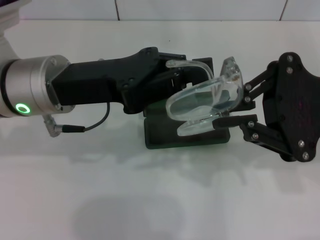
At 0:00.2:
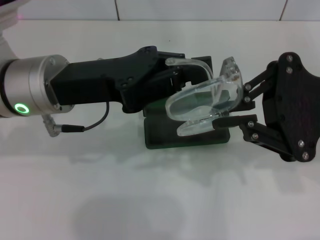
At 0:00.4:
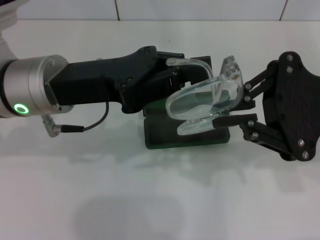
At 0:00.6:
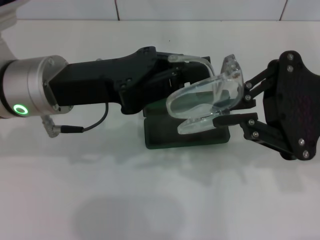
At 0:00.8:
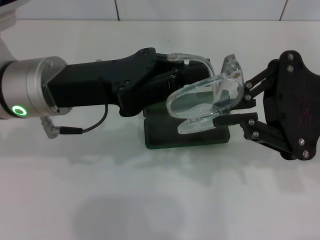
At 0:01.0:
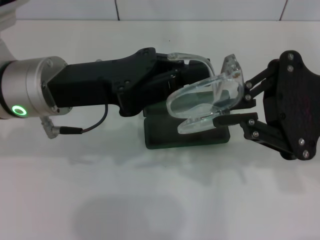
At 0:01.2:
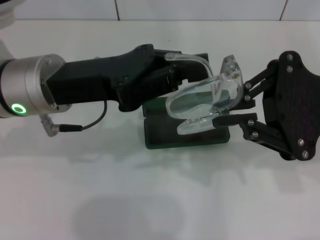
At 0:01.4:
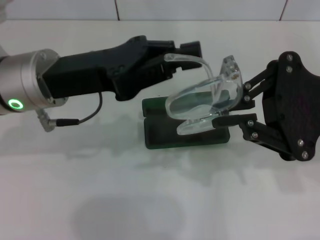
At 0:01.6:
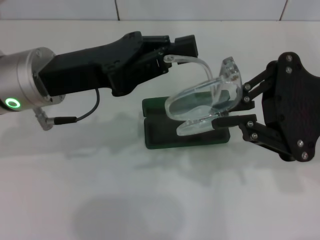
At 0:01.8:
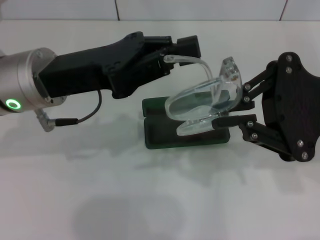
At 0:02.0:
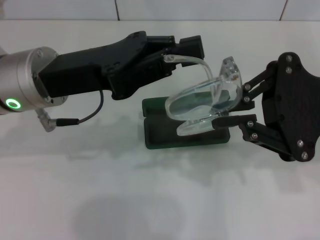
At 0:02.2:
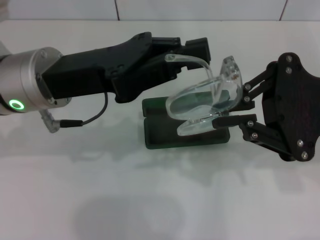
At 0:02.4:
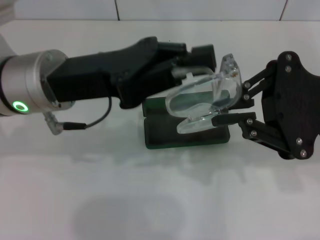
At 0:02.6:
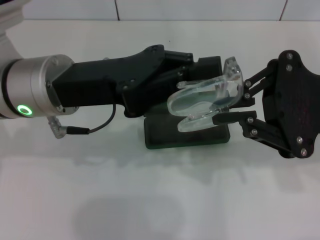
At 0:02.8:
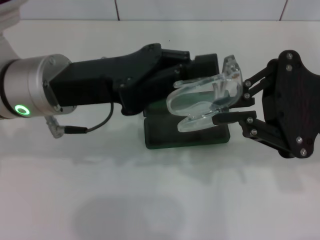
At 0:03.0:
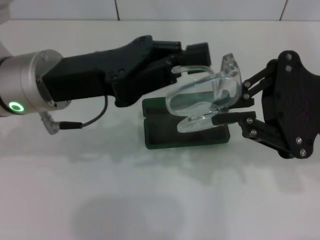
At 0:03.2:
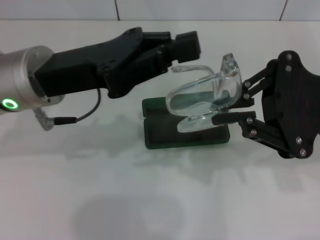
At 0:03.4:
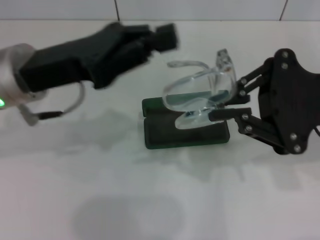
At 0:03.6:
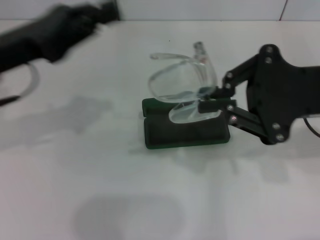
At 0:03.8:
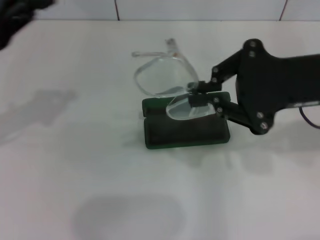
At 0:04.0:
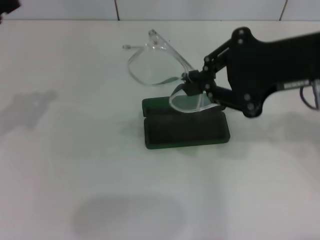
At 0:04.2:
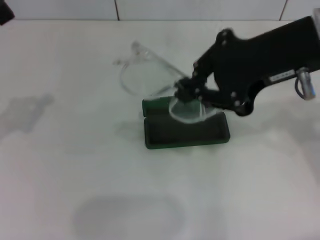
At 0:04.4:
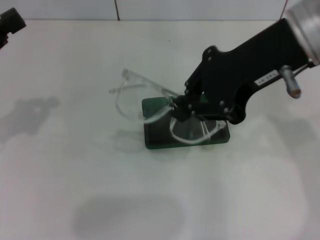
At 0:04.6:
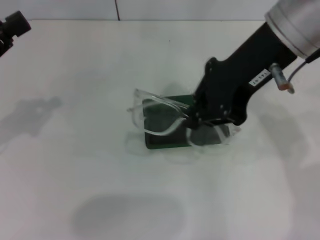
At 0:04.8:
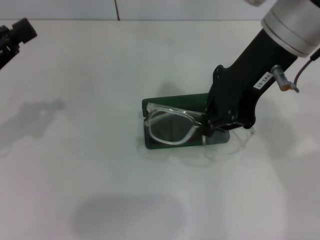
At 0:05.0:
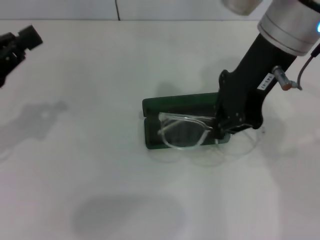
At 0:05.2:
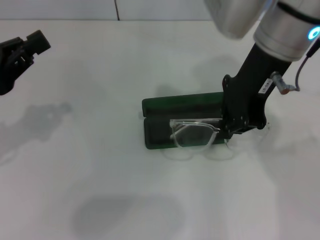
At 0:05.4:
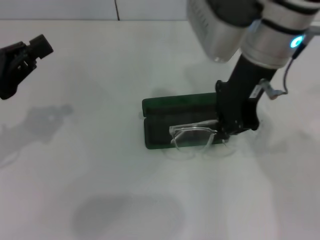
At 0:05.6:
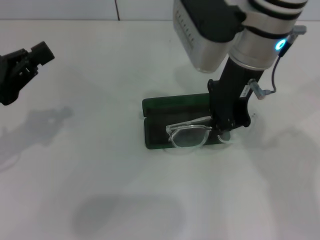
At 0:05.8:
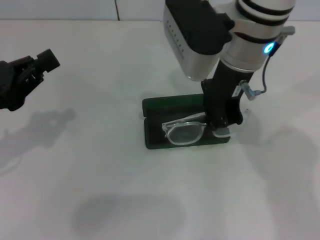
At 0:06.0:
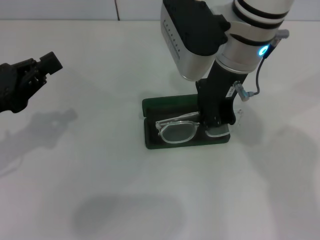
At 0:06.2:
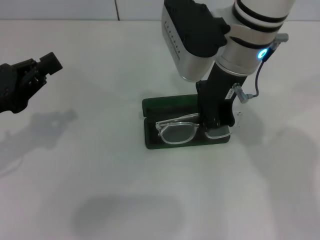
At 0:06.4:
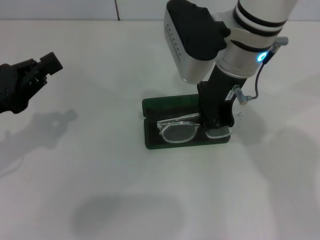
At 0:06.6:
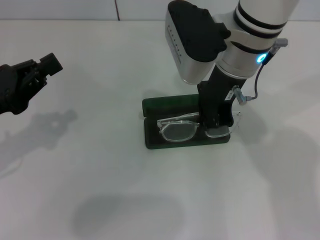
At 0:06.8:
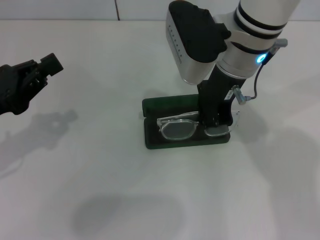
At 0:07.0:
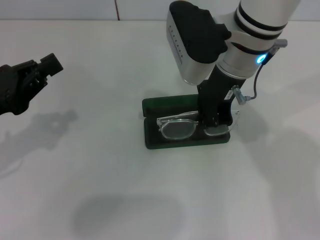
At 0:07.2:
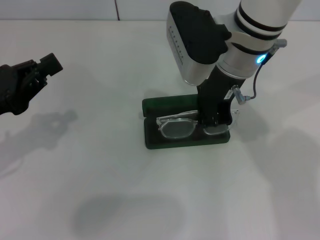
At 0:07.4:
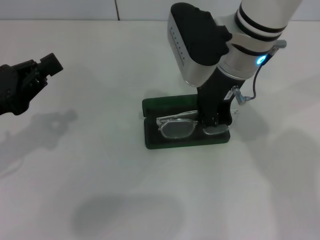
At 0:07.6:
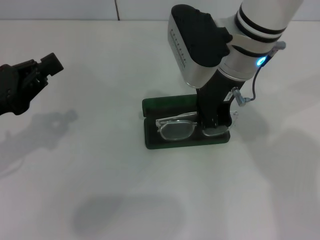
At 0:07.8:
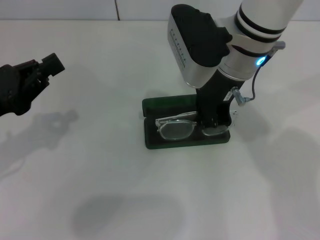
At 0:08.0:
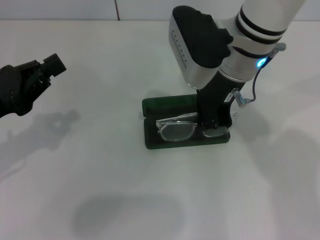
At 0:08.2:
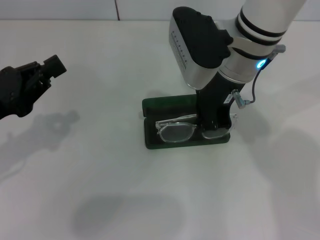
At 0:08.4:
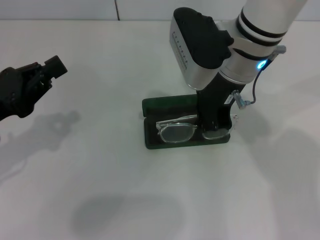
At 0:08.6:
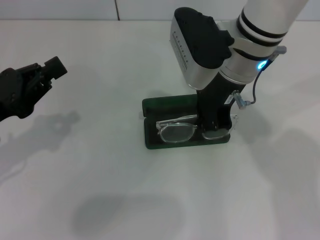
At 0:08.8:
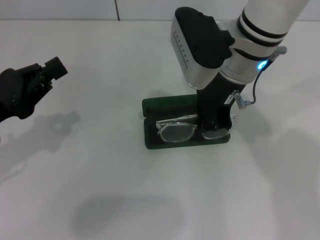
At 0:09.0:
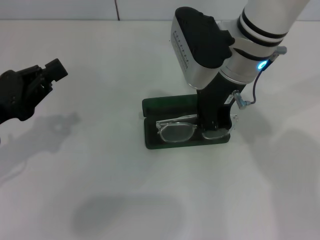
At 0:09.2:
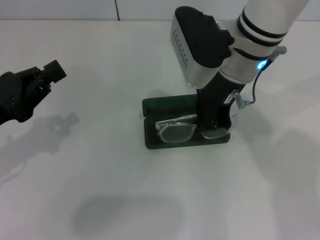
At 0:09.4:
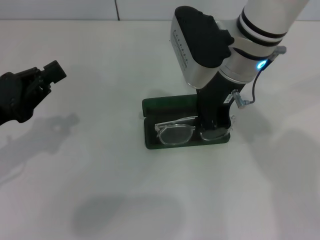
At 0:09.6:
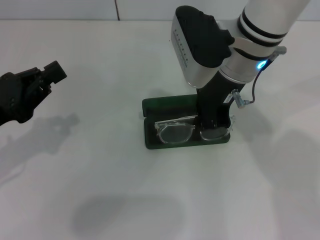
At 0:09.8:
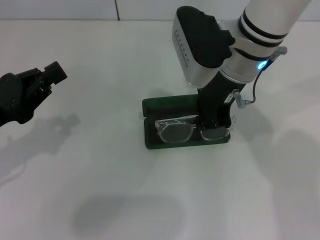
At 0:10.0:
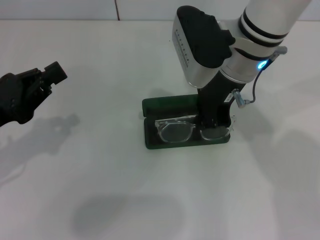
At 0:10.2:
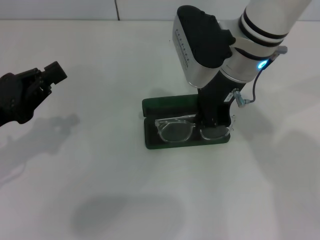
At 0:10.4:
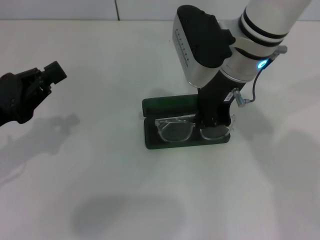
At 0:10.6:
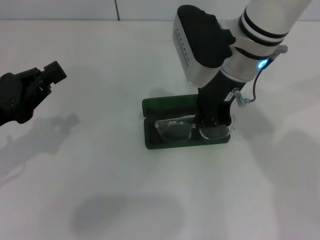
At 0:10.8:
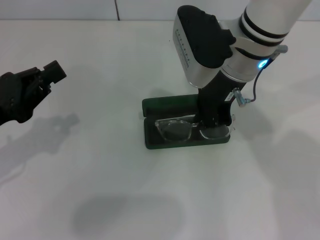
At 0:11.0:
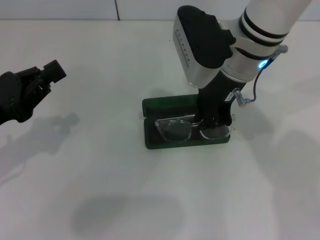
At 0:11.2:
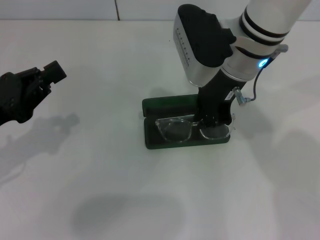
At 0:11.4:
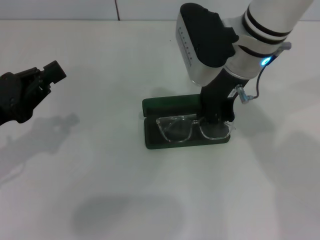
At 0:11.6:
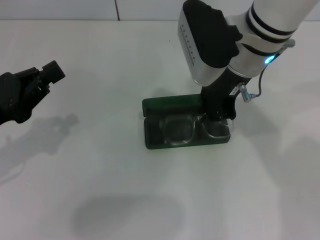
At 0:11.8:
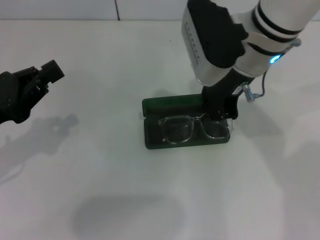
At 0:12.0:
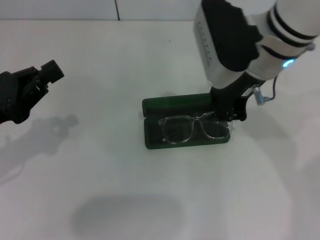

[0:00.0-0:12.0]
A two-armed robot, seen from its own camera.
Step, 0:00.0 to 0:02.8: Fold the frame with your left hand.
0:00.0 to 0:03.0: The grippers stay close to where they were, moving slightly.
0:03.0 to 0:04.4: The right gripper is displaced to the left and upward by approximately 10 cm. Meanwhile the left gripper travels to the left by some 15 cm.
0:04.4 to 0:06.0: The right gripper is displaced to the left, downward and forward by approximately 10 cm, while the left gripper moves approximately 5 cm.
0:06.0 to 0:07.6: The grippers make only small movements.
0:07.6 to 0:10.4: The two grippers keep their place.
0:10.4 to 0:12.0: The grippers stay close to where they were, moving slightly.

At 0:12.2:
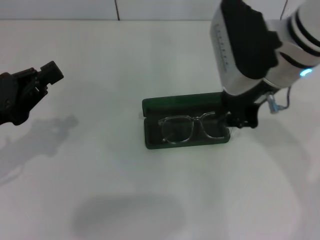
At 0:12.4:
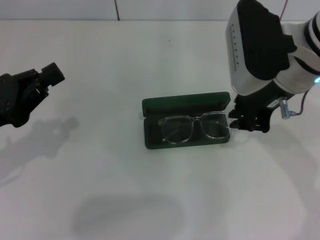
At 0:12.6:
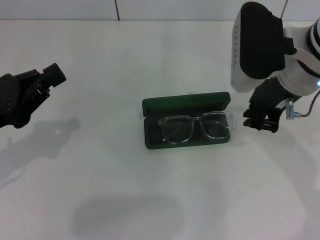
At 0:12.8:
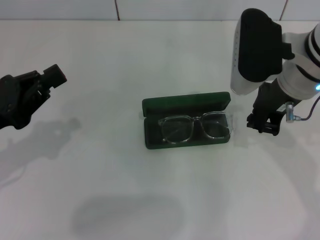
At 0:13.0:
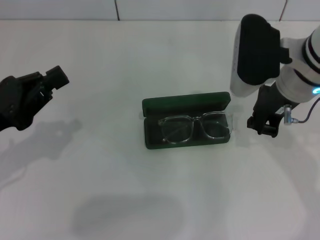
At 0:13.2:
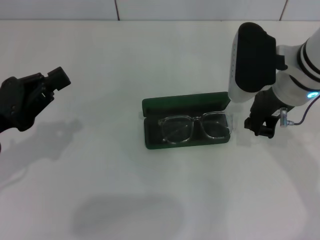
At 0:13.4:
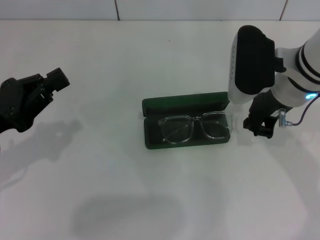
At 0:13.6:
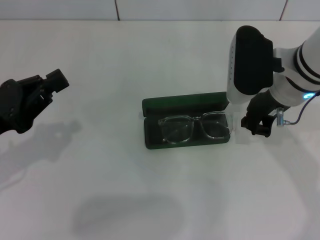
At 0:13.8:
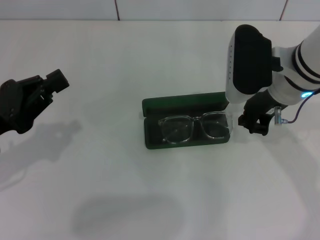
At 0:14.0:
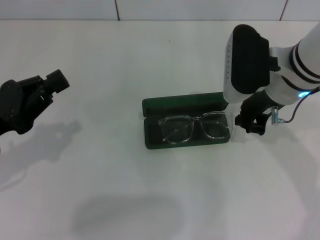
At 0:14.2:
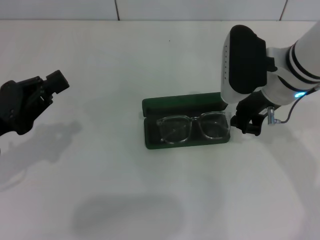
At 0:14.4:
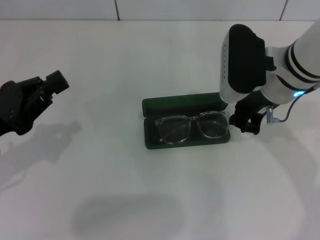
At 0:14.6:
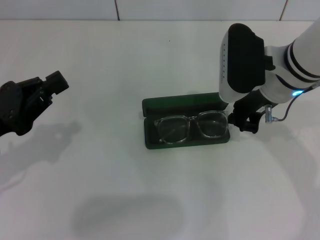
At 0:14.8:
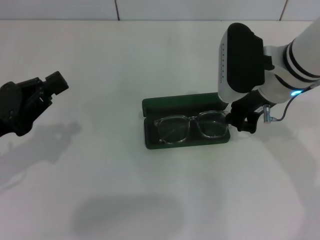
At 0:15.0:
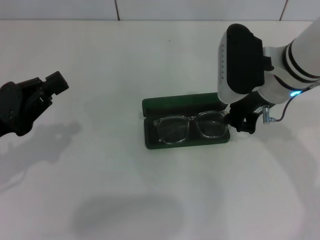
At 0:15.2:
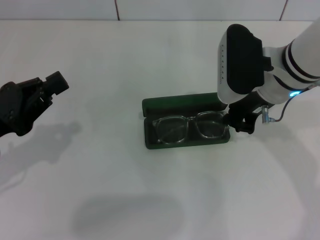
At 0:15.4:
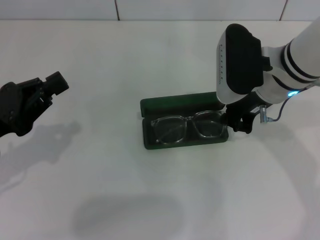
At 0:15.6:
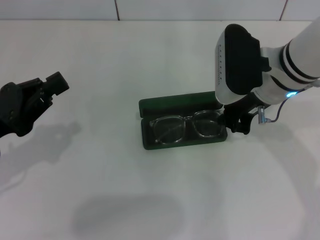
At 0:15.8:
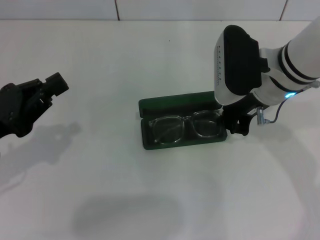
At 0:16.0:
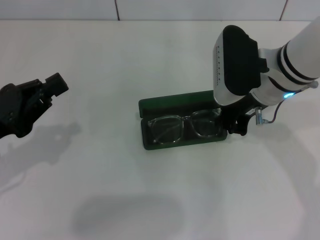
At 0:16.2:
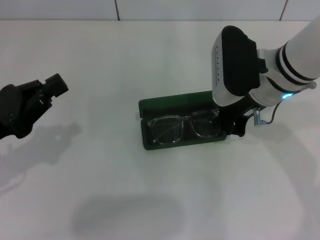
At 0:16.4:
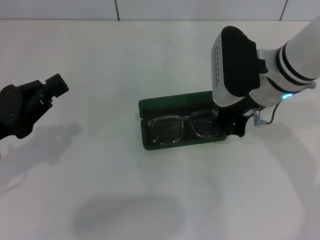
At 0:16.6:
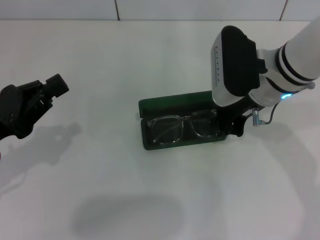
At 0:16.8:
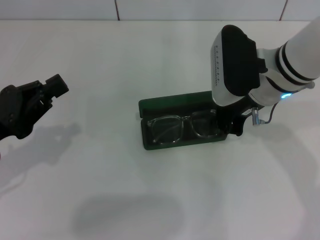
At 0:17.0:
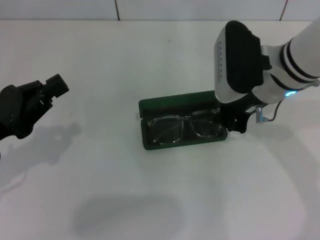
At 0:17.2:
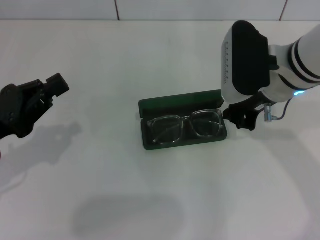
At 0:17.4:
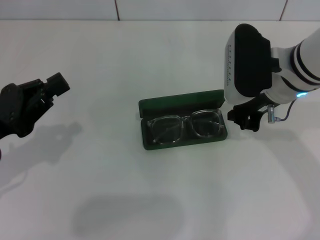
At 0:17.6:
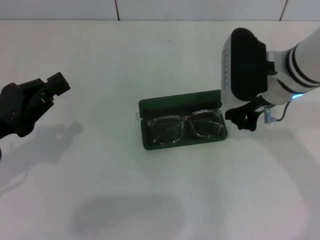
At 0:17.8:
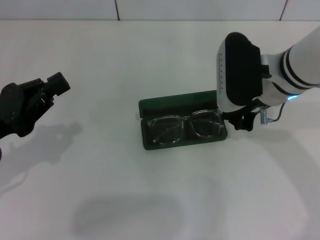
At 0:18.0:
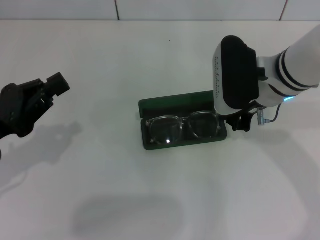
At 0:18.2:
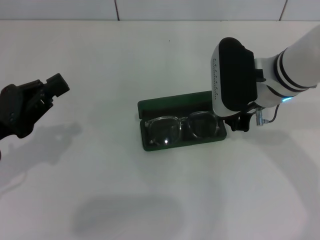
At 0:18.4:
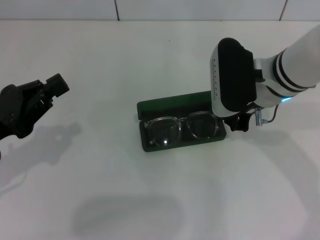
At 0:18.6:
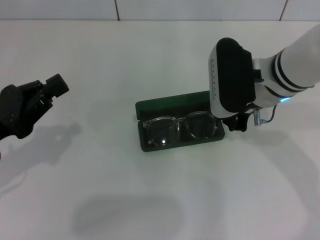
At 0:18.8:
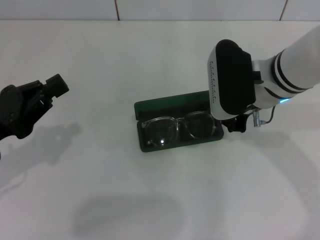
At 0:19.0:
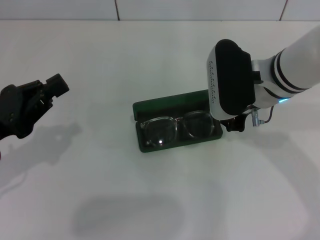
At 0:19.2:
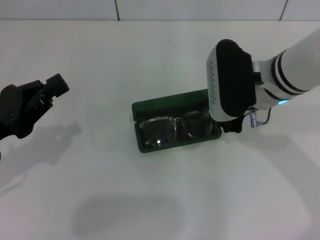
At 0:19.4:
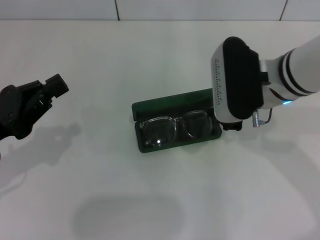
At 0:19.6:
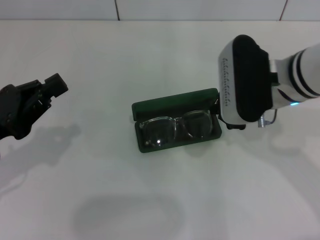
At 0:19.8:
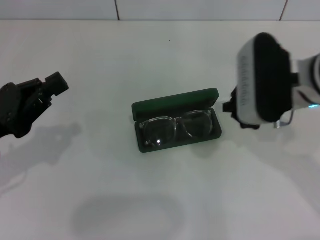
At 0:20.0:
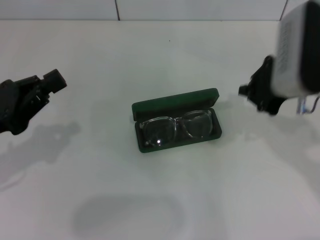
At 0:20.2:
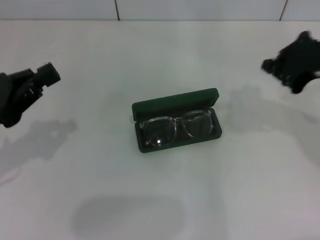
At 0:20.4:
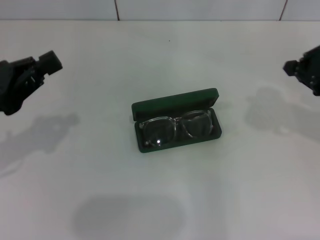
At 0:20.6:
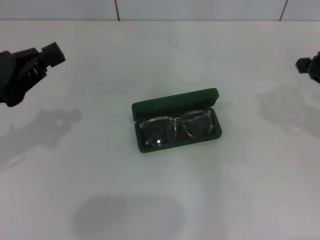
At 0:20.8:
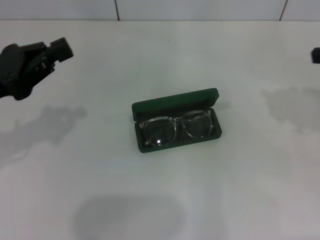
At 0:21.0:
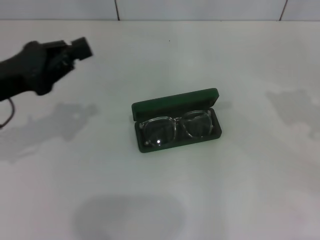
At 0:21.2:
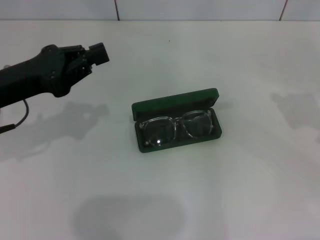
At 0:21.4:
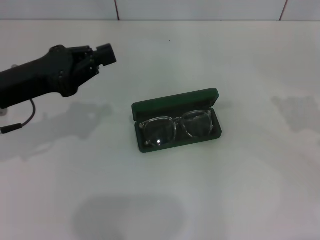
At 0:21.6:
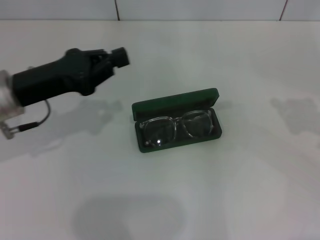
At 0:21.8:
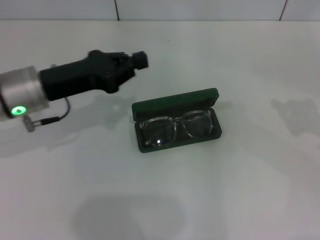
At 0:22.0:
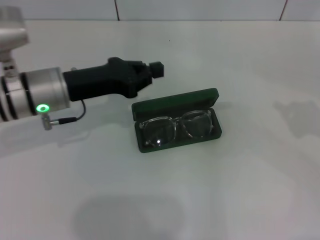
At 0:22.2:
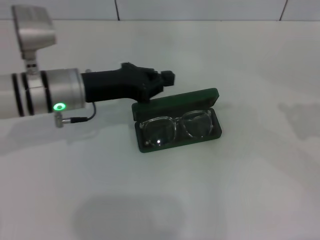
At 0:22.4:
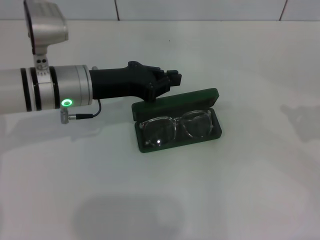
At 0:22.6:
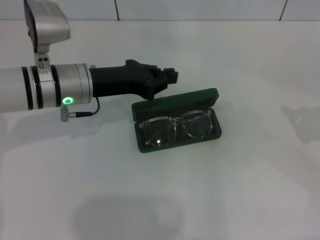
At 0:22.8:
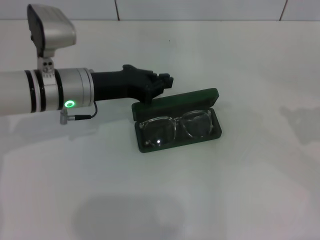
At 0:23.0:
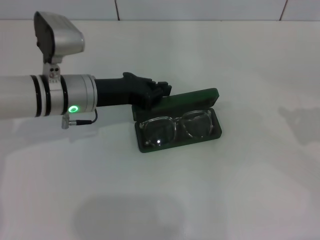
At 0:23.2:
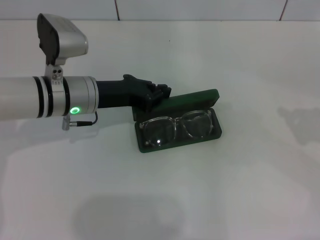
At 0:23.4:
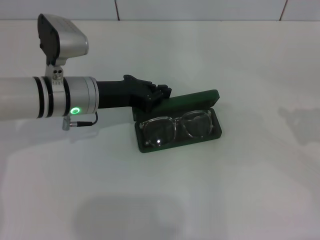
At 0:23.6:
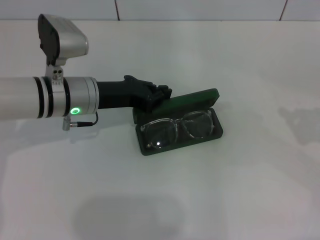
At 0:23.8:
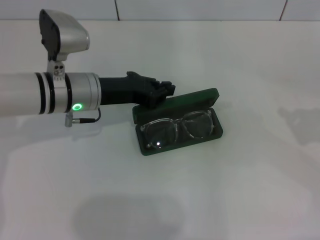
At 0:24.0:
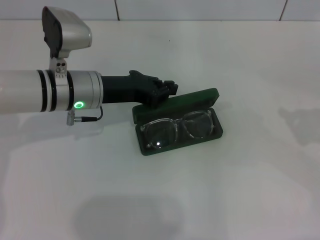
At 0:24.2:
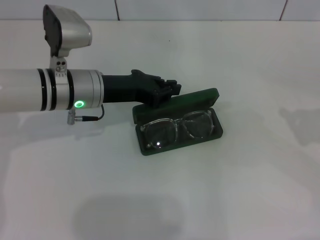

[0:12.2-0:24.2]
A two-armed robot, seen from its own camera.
Step, 0:12.2 to 0:19.2: Put the glasses into the case with your right hand.
0:12.2 to 0:13.8: The right gripper travels downward by about 5 cm.
0:13.8 to 0:18.2: The grippers make only small movements.
0:18.2 to 0:19.8: The right gripper changes place by approximately 5 cm.
0:19.8 to 0:21.2: The left gripper moves forward, approximately 5 cm; the right gripper travels to the right by roughly 20 cm.
0:21.2 to 0:22.6: The left gripper shifts roughly 10 cm to the right and forward. The right gripper moves roughly 5 cm.
0:22.6 to 0:24.2: There are only small adjustments of the grippers.
